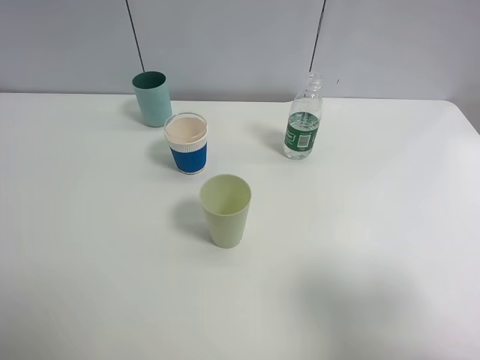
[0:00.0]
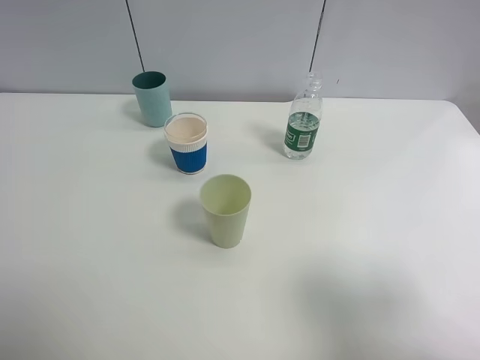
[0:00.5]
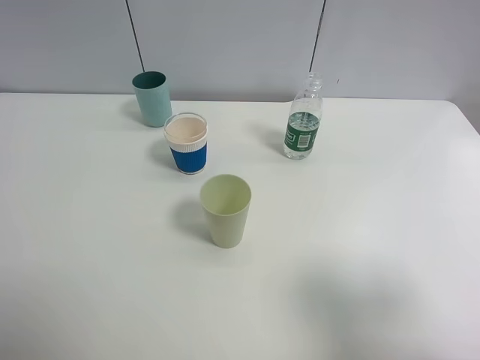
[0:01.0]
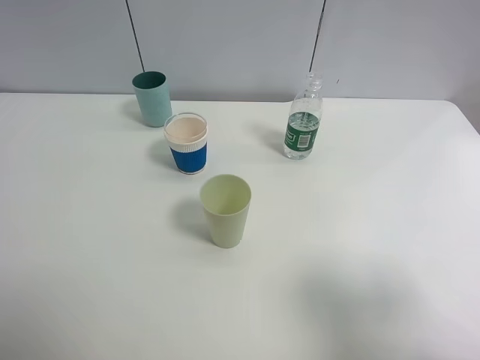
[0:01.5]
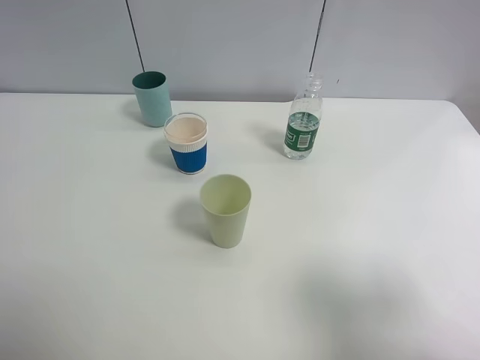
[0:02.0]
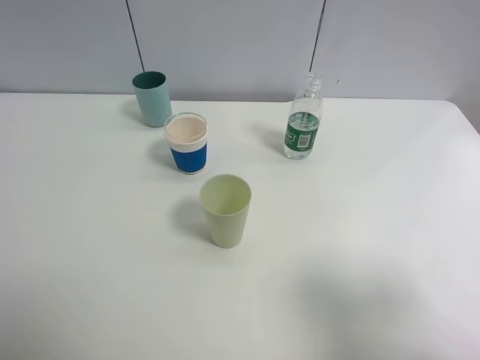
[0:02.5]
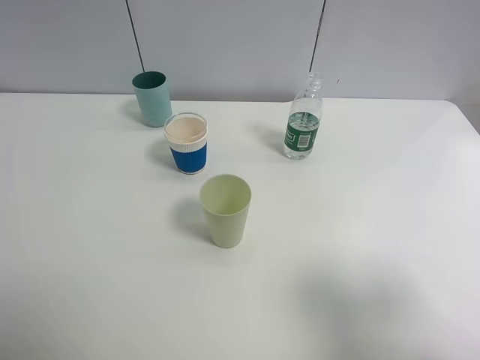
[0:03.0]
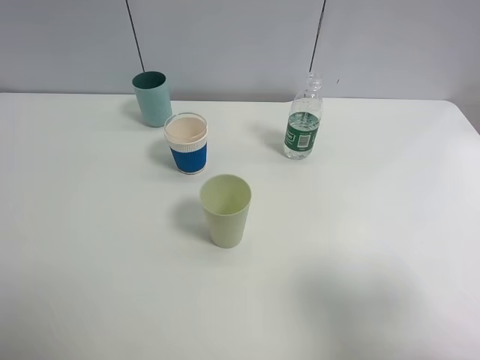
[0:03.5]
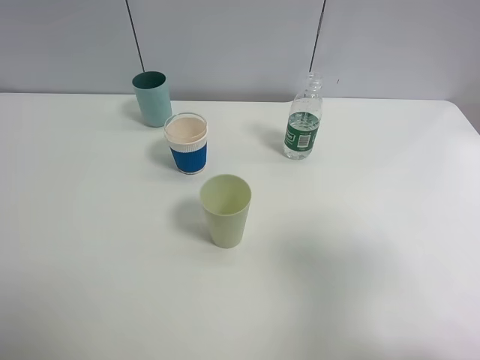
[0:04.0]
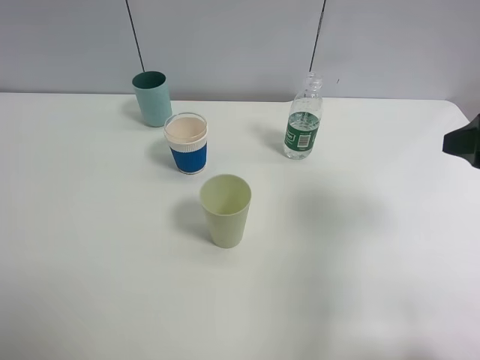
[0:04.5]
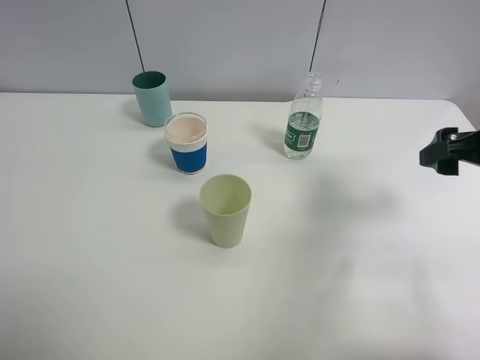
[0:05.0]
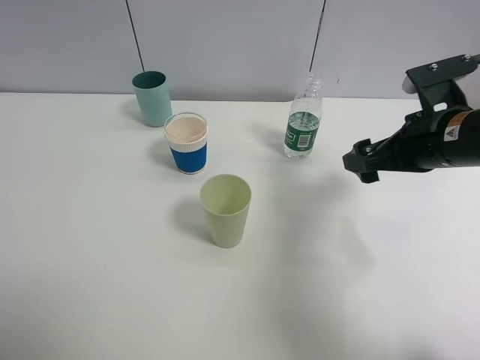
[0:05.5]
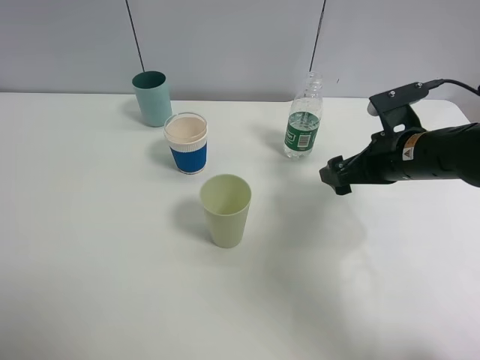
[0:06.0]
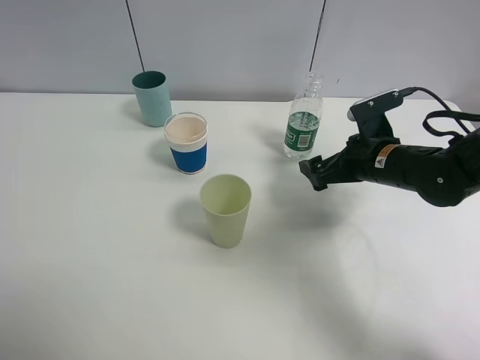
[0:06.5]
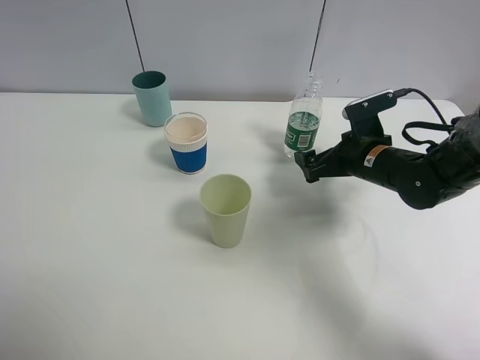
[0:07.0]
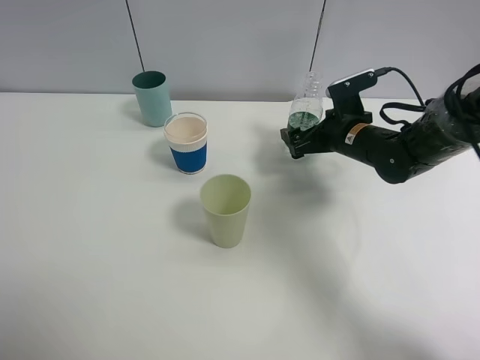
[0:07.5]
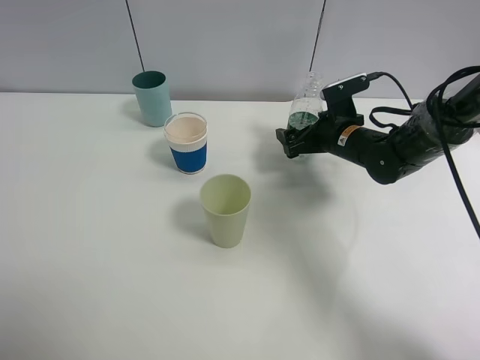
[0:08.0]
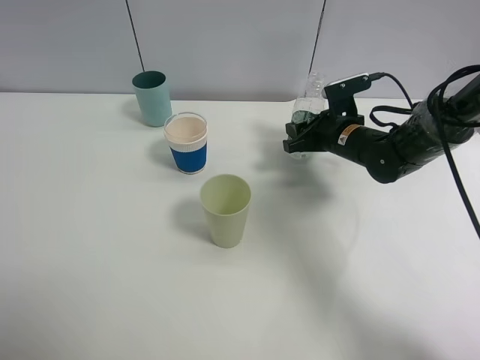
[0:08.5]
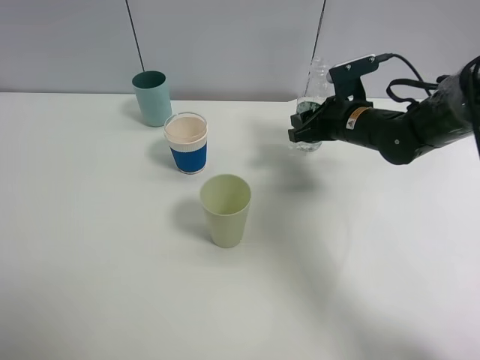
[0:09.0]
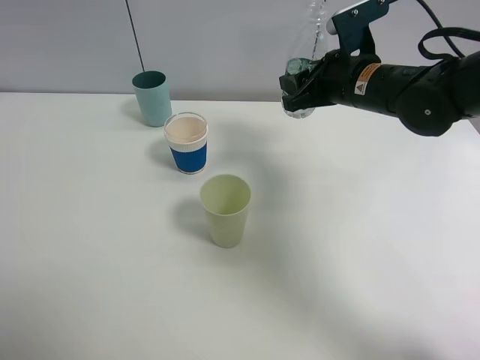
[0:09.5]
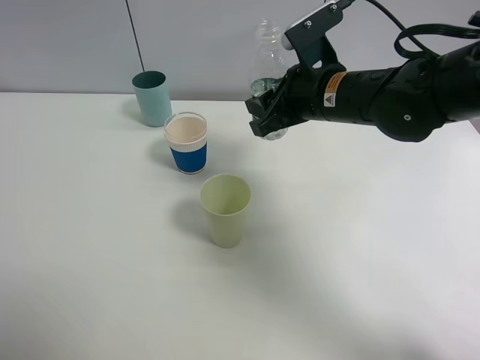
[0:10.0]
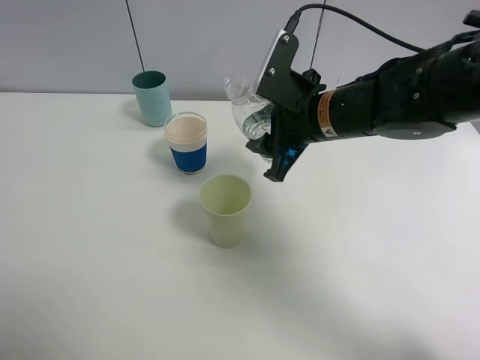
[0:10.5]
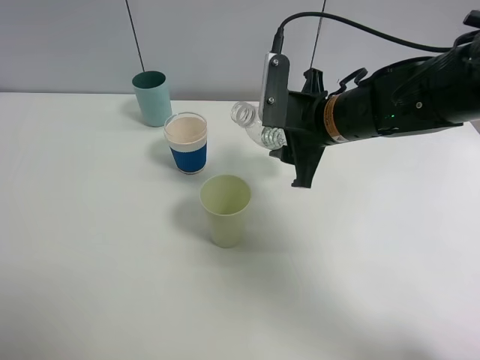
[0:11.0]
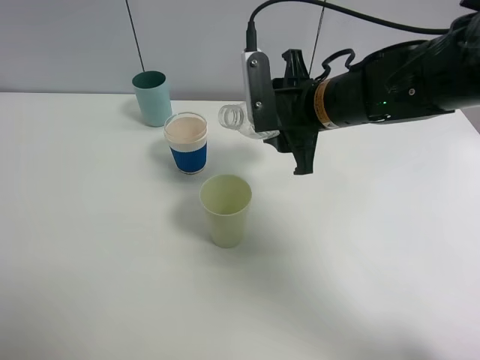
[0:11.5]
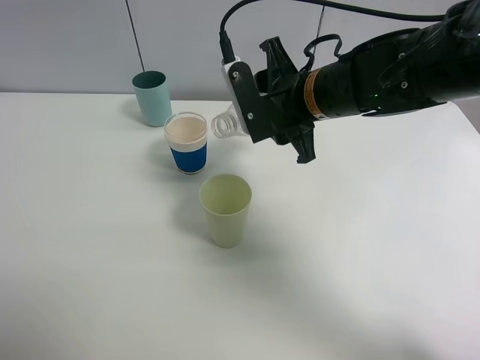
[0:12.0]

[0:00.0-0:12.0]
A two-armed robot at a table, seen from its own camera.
Task of the whole recording: use a clamp to hold the bottle of the drink, pour the beverage into a random cup, then clamp the cup containing the drink and pour the drink into another random cup.
Step, 0:00.0 to 0:09.0: Pick up the water bottle with right gripper.
0:00.0 to 0:02.0: Neither gripper changes place.
0:02.0 to 0:04.0: The right gripper travels forward by roughly 5 cm.
0:04.0 to 0:06.0: The right gripper heads forward and downward, covering roughly 25 cm.
0:06.0 to 0:08.0: The right gripper shifts about 10 cm forward and downward.
0:08.0 to 0:10.0: The right gripper heads upward, to the left and backward, covering roughly 15 cm, and closes.

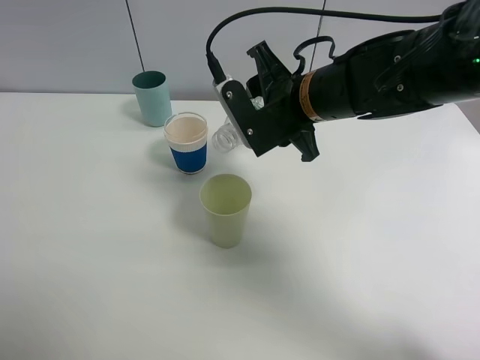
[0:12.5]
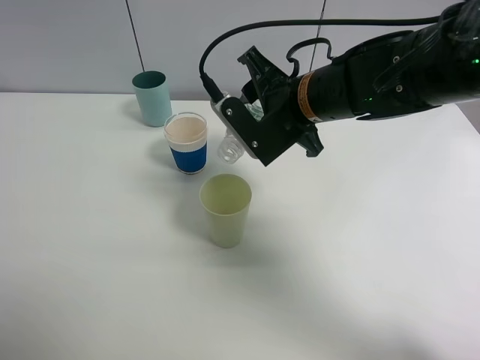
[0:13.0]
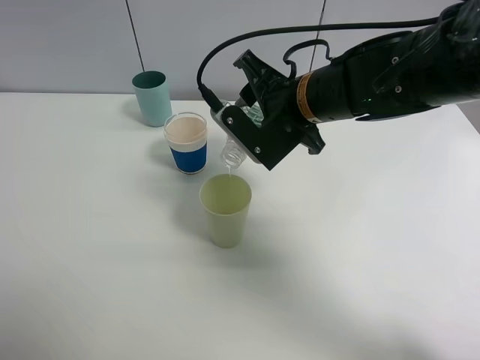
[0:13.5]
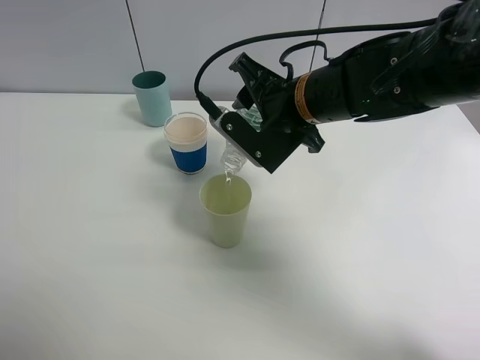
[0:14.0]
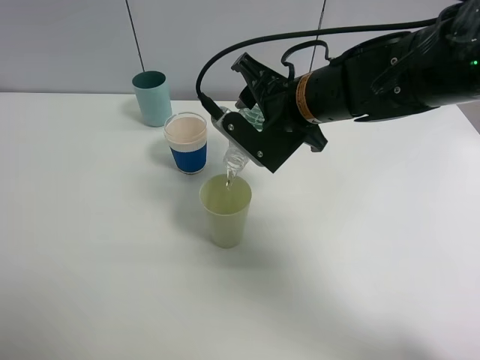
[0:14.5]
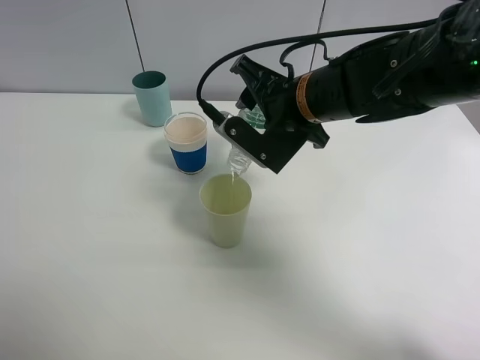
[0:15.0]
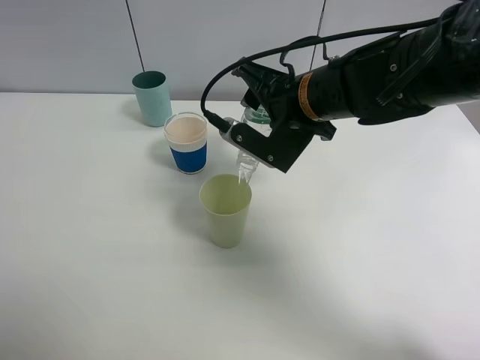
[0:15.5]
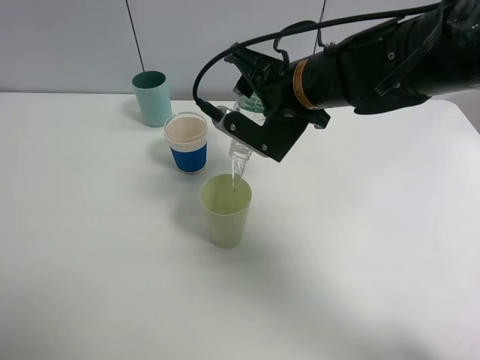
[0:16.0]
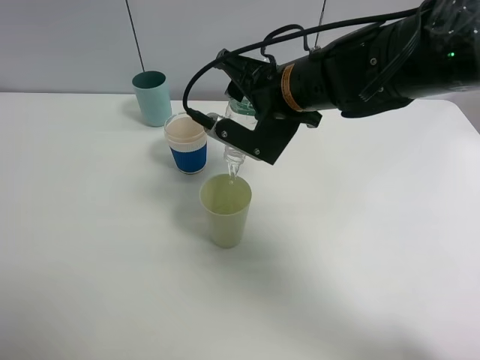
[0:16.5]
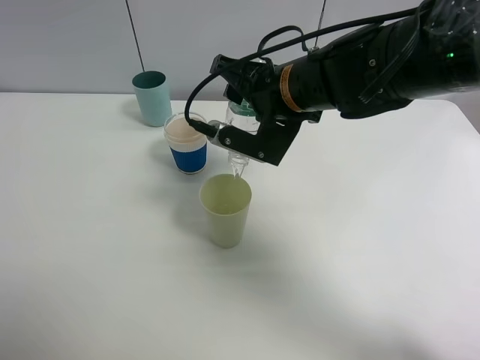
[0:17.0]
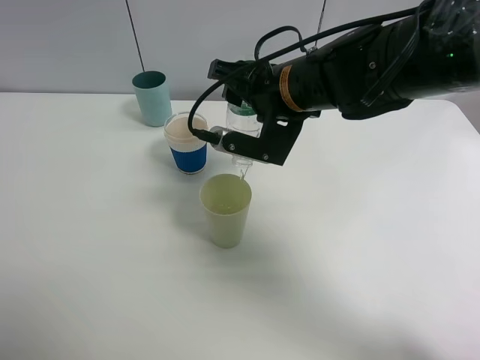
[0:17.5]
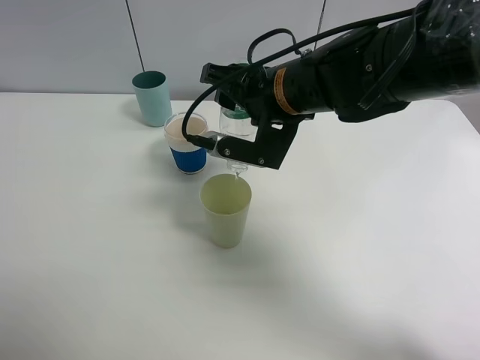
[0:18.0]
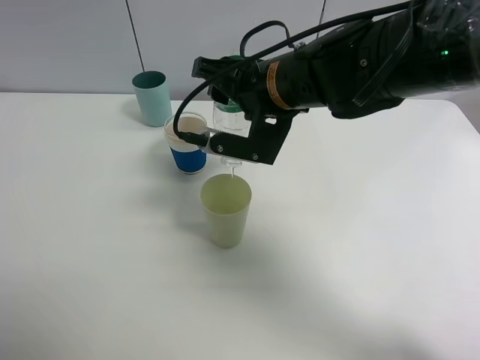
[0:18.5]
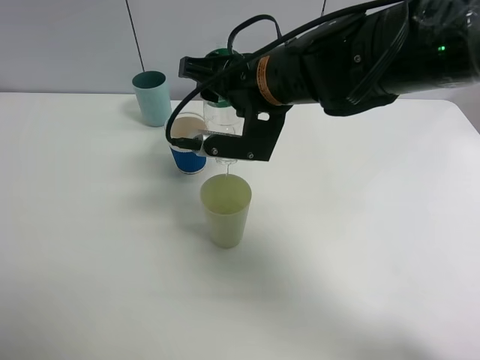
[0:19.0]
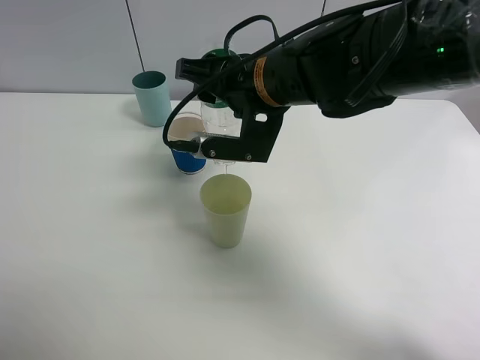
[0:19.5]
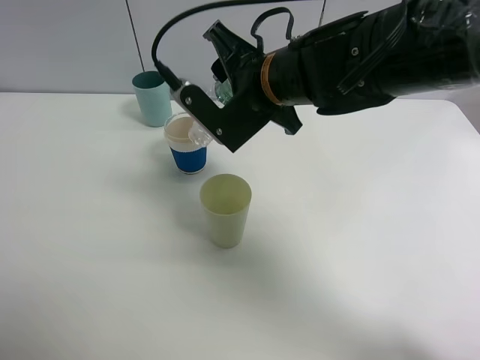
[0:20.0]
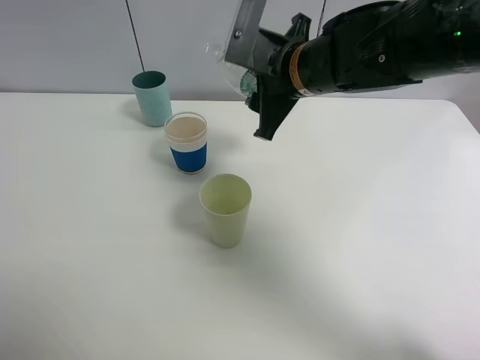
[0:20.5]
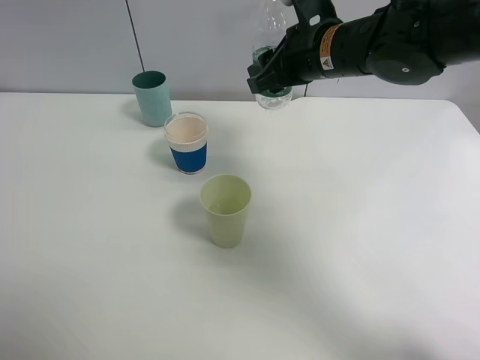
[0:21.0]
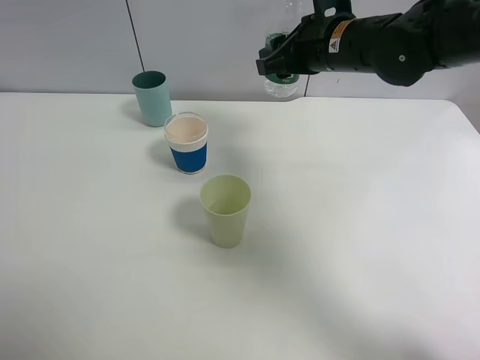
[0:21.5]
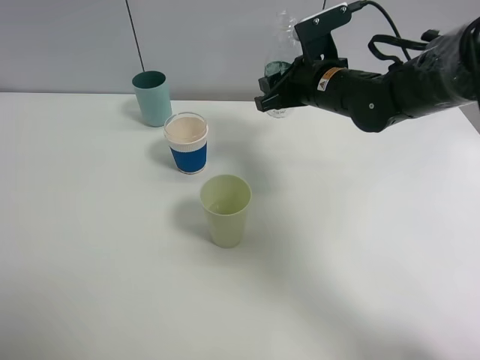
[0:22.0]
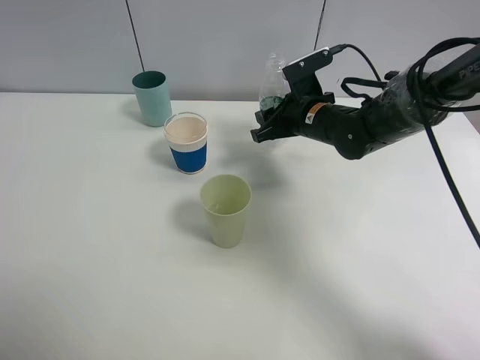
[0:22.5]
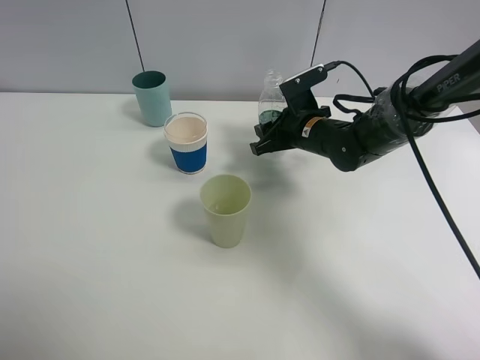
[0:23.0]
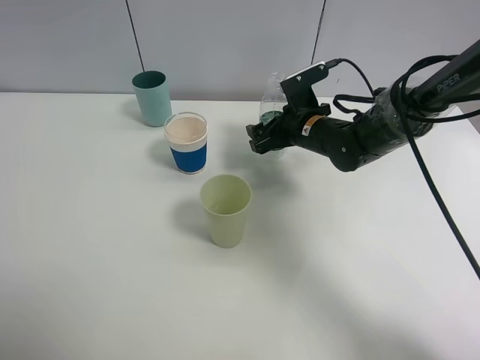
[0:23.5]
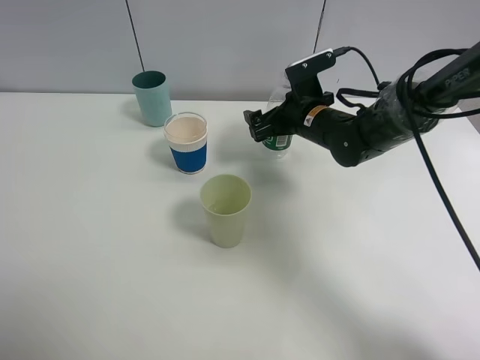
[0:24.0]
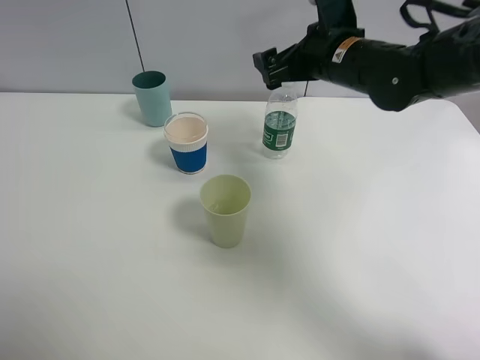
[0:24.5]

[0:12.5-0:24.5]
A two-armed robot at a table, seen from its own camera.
Task of the whole recording: use a clamp to hold the bottle of the drink, pour the beverage into a random cup, then clamp the cup containing the drink and pour the drink into another random cup.
Step, 0:12.5 to 0:20.0: Pour water into the green plastic cup with right gripper.
Step, 0:20.5 to 0:24.0: Place the green plastic cup on the table with right gripper.
0:12.5 to 0:14.5: There are only small adjustments of the grippers.
0:14.5 to 0:16.5: The grippers stay close to where they were, moving slightly.
0:16.5 to 0:18.5: The grippers move only a little.
0:20.5 to 0:22.5: The right gripper is displaced downward and forward by some 10 cm.
0:22.5 to 0:24.5: The right gripper goes some 10 cm upward, and opens.

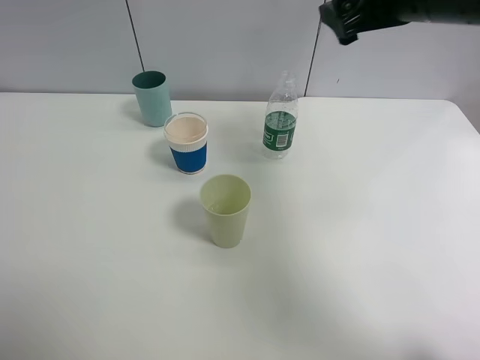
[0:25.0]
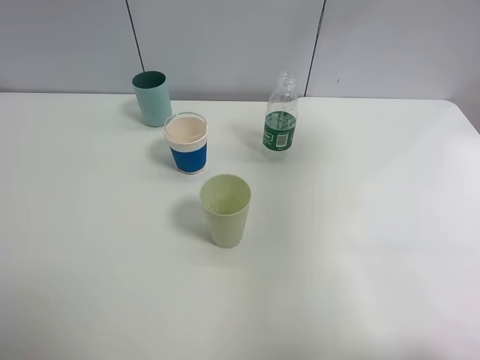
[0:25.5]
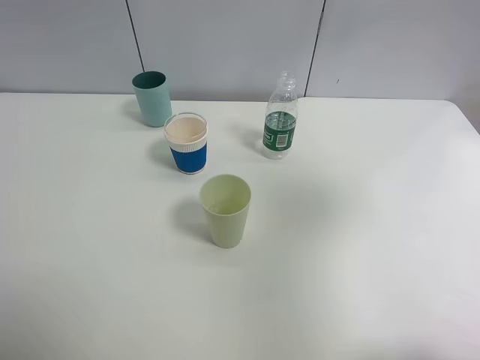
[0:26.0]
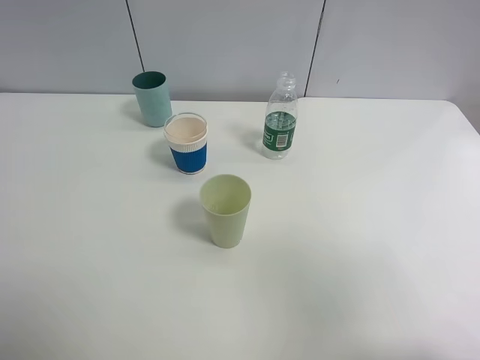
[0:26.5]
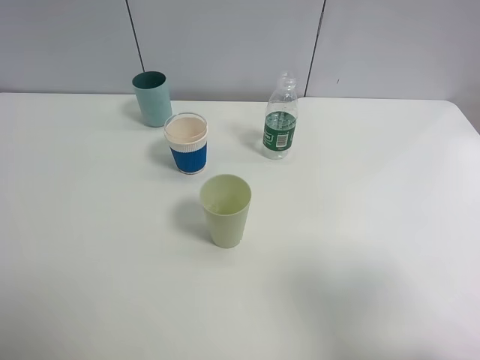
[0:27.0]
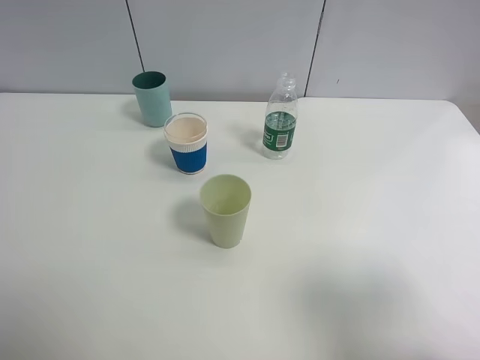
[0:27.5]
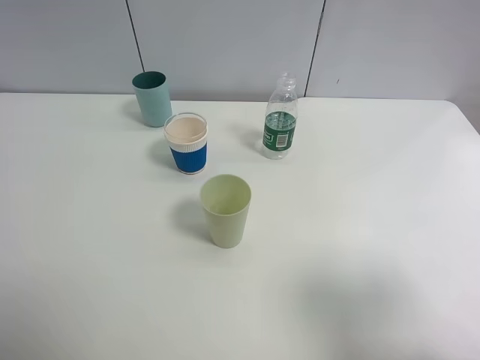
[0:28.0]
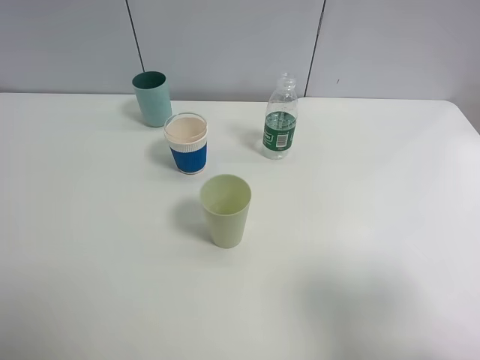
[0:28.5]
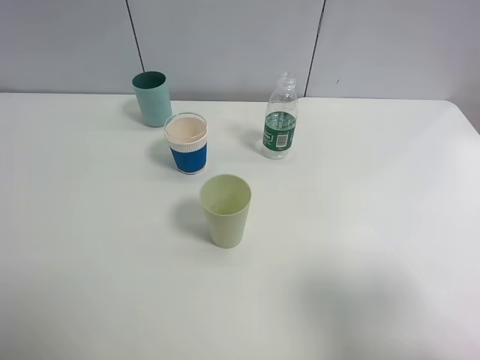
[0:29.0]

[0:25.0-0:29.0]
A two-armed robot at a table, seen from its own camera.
Task of the whole recording: use a clamp to hold the bottle of the drink, pour the beverage into a random cup, then clamp the cup containing the drink and pour the drink into another random cup.
0:25.0 to 0:27.0: The right gripper moves backward, some 30 cm.
